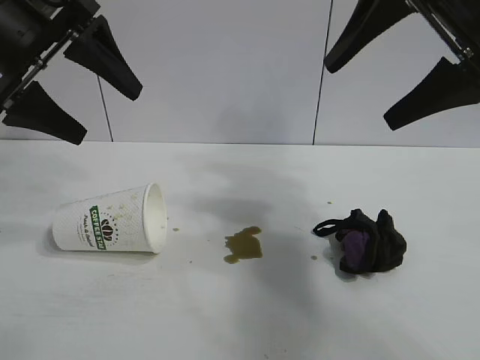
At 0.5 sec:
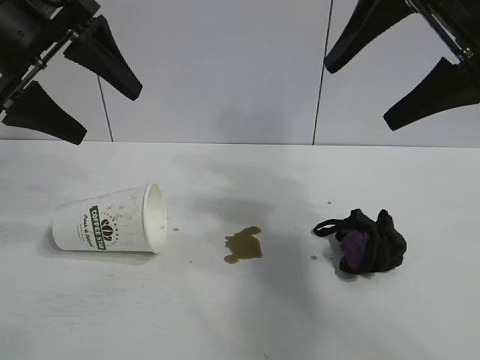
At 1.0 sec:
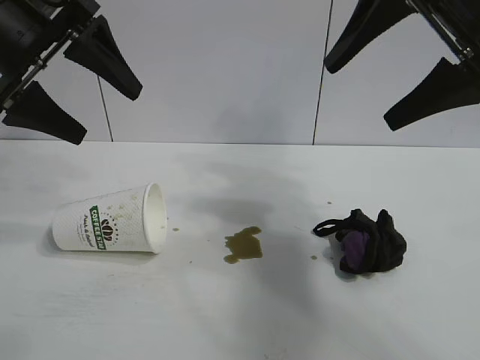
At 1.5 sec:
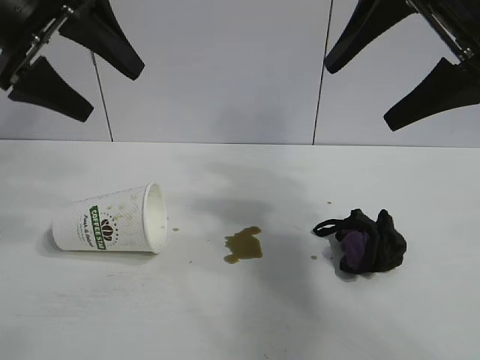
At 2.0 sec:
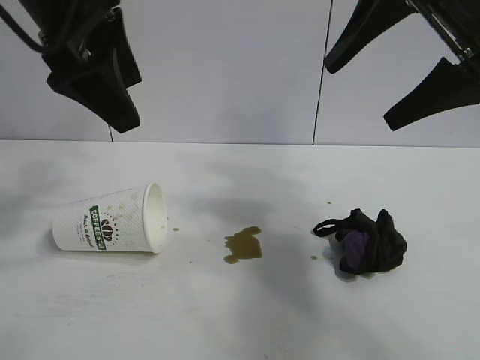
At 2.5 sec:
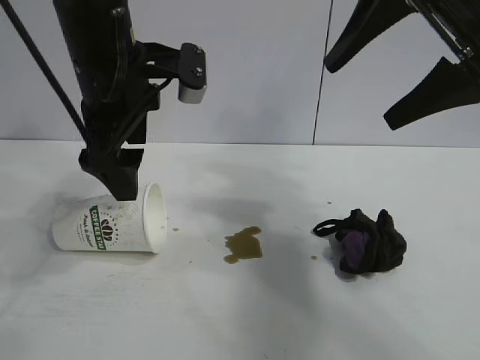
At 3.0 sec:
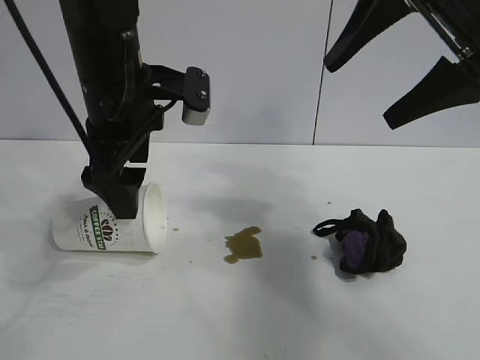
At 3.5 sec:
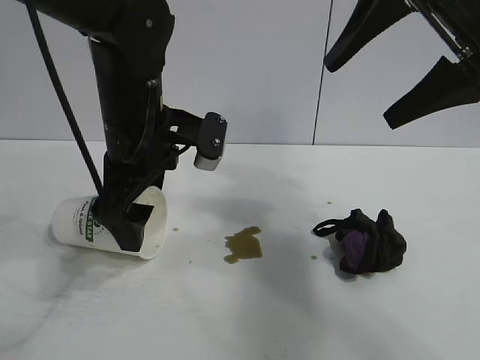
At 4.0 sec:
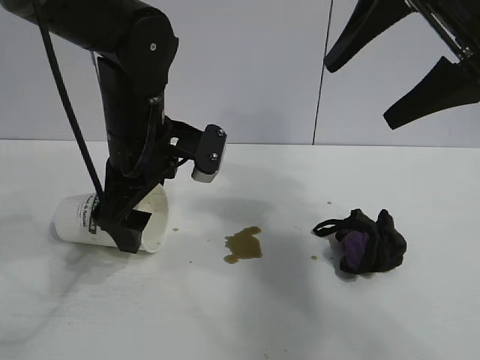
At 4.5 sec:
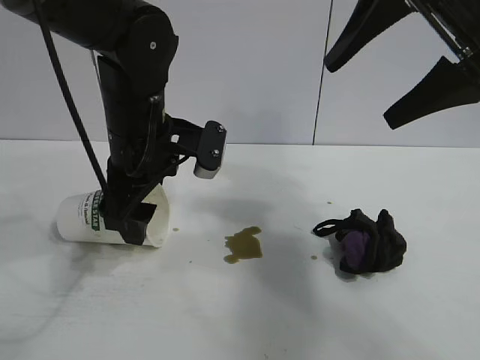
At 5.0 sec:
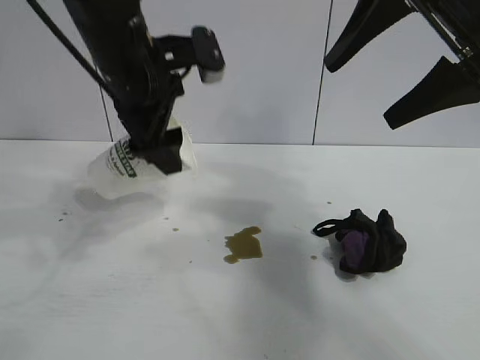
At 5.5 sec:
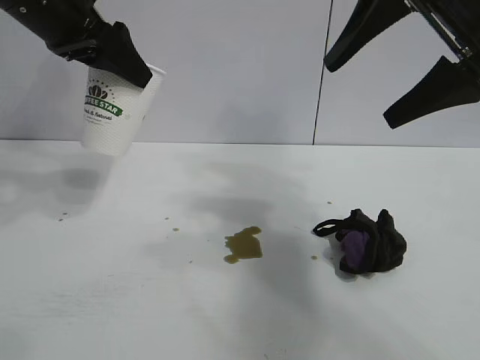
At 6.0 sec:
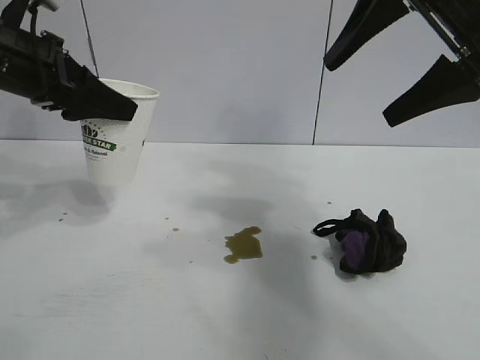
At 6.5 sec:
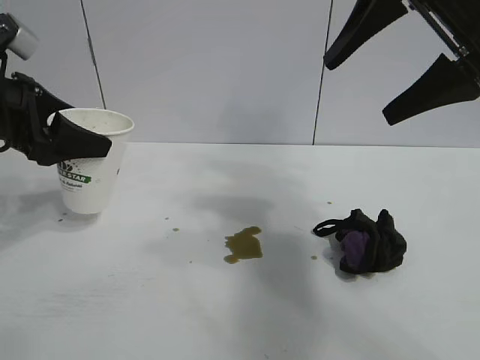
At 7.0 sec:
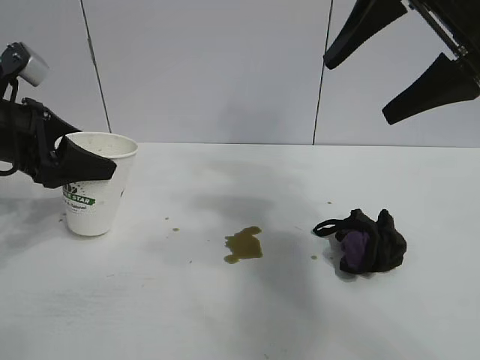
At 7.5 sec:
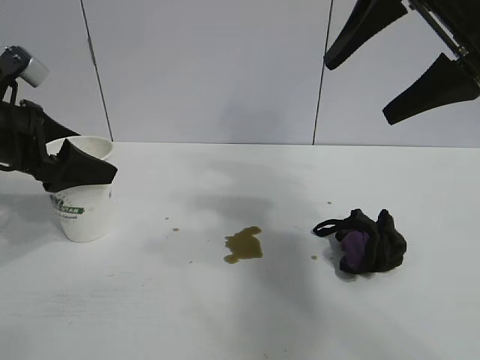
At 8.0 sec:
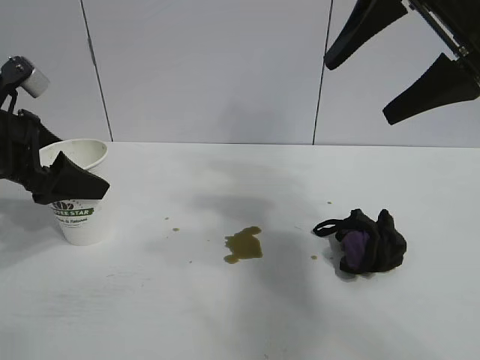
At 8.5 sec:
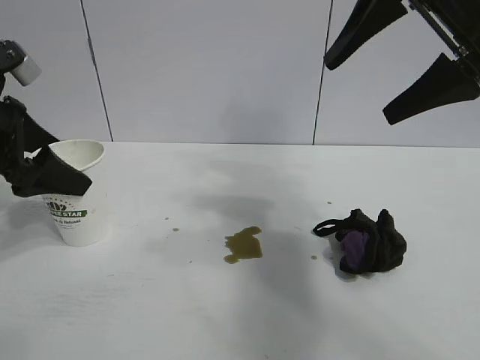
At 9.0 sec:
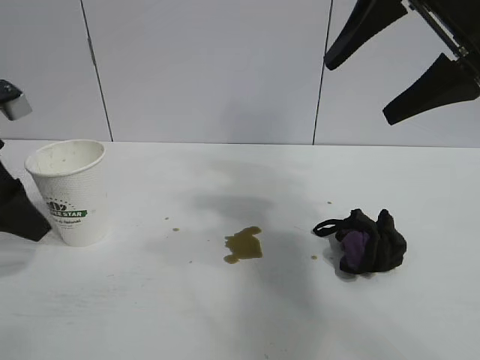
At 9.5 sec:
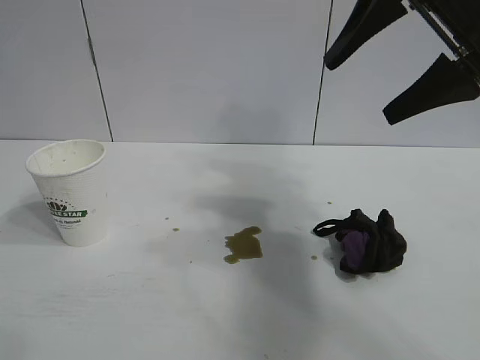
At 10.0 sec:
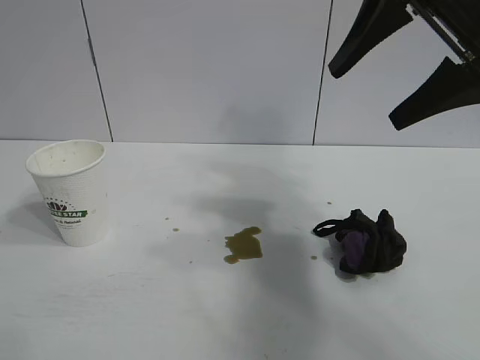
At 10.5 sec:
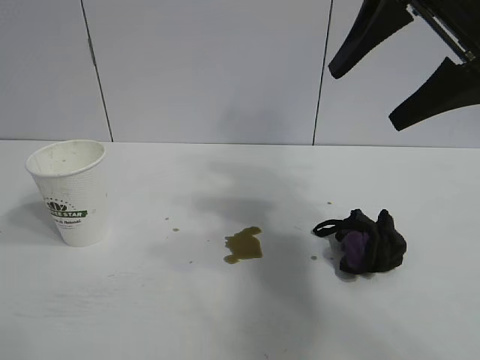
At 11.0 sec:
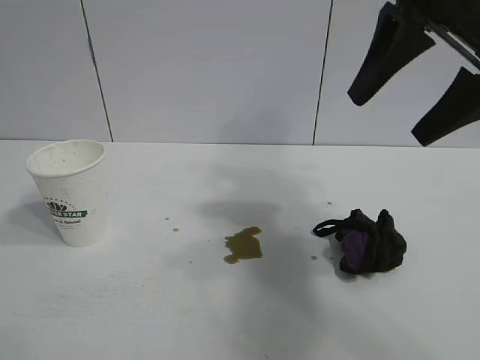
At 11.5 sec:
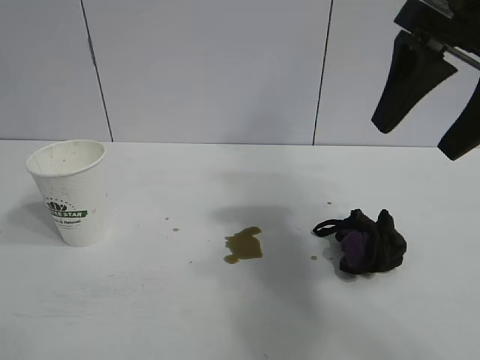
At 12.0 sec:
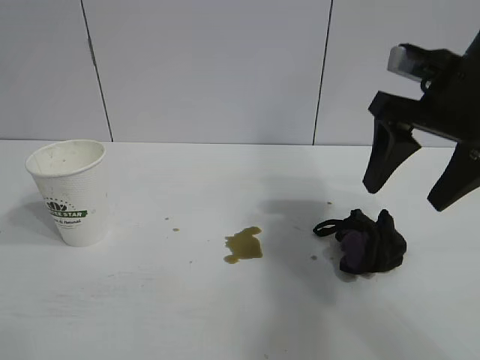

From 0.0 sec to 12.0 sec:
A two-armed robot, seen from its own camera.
Task of the whole recording: the left gripper pick up the fallen cup and place it upright, the right gripper grasp the black rag and wipe the stain on the table, the right gripper put the black rag back in its original position.
Step, from 1.5 sec to 4.5 sec: Grasp the paper cup with left gripper.
Step, from 5.0 sec to 8.0 sec: Stand the paper cup upright with left gripper.

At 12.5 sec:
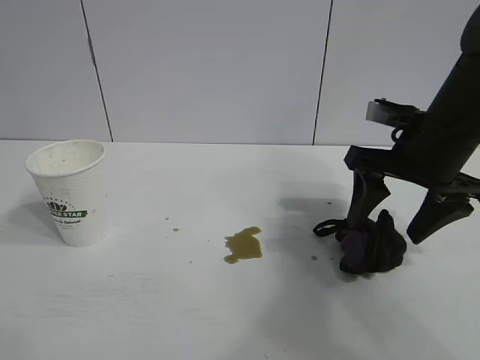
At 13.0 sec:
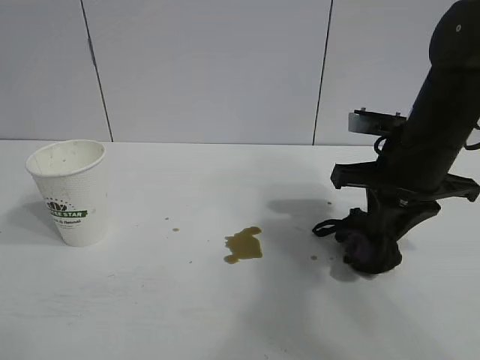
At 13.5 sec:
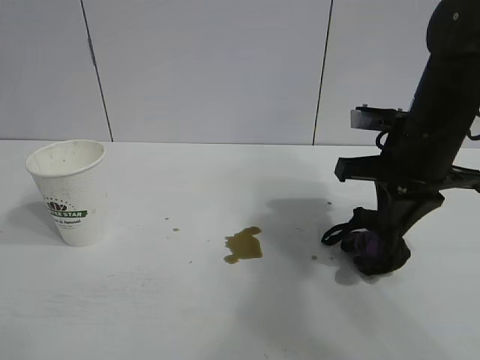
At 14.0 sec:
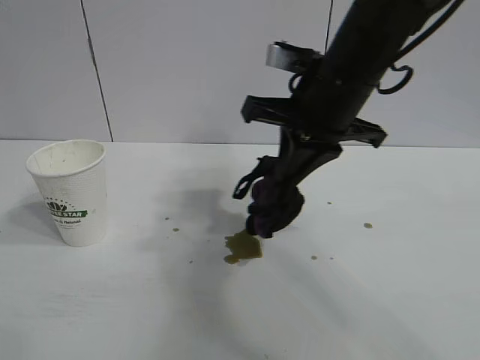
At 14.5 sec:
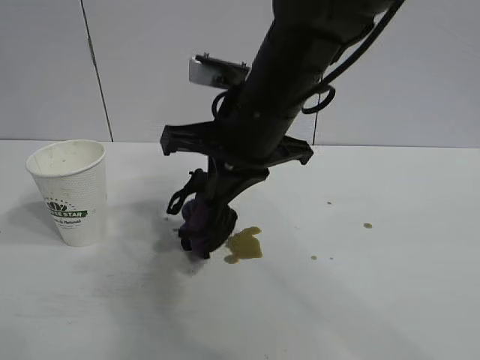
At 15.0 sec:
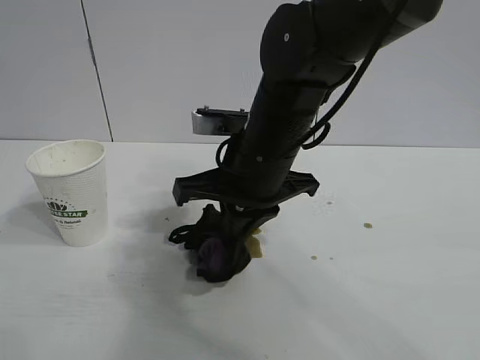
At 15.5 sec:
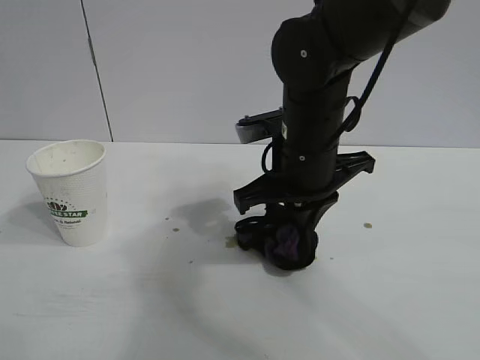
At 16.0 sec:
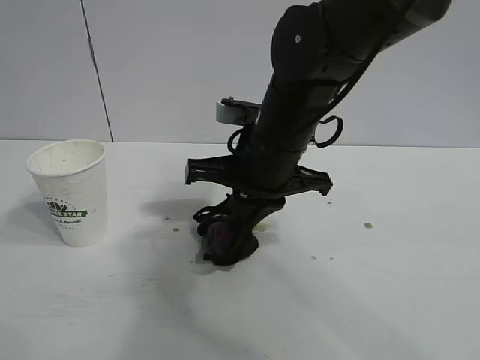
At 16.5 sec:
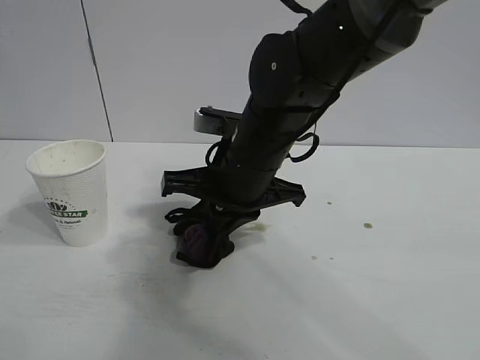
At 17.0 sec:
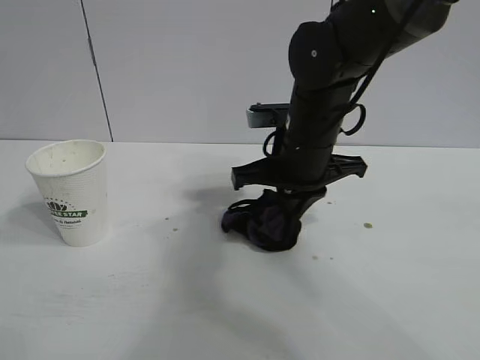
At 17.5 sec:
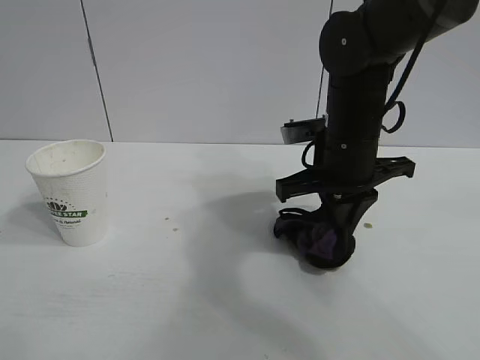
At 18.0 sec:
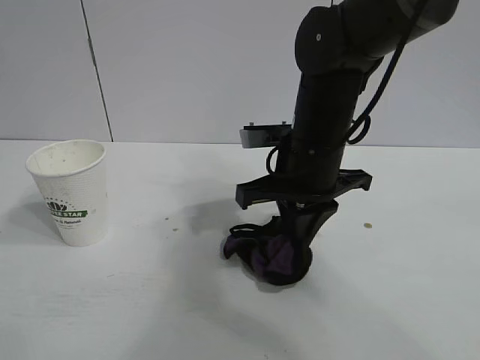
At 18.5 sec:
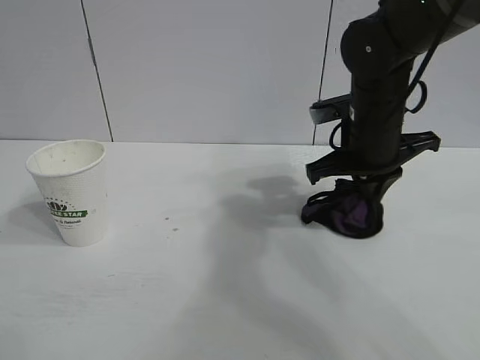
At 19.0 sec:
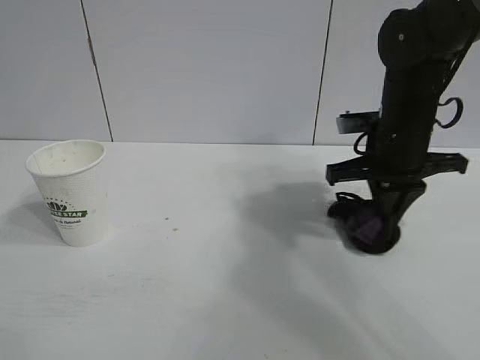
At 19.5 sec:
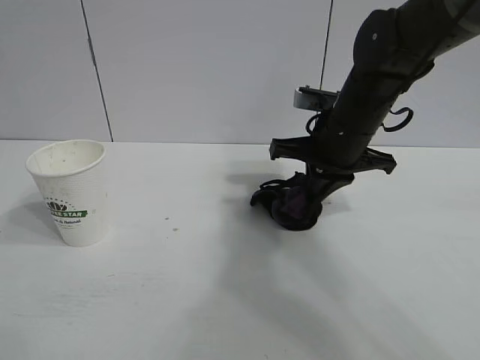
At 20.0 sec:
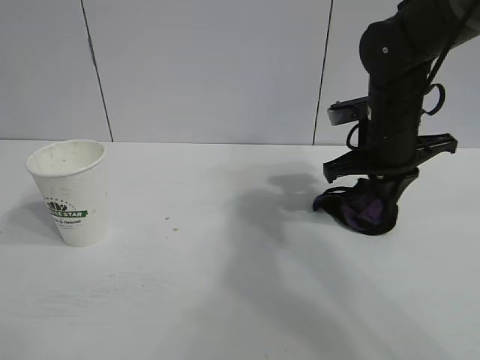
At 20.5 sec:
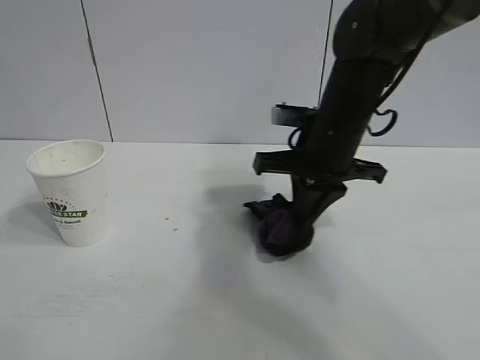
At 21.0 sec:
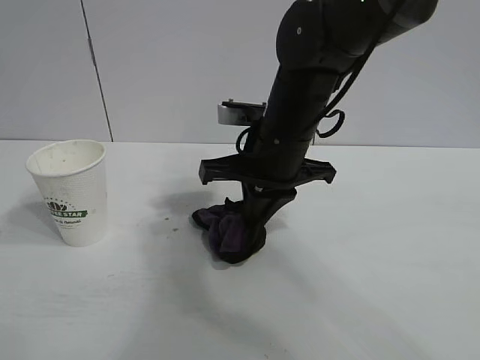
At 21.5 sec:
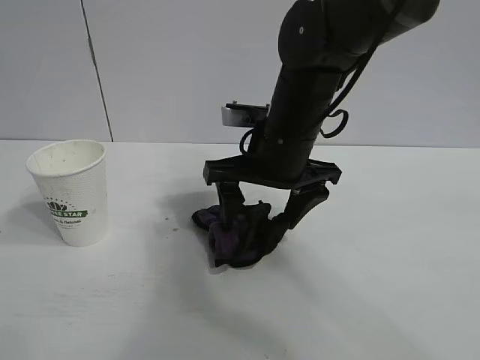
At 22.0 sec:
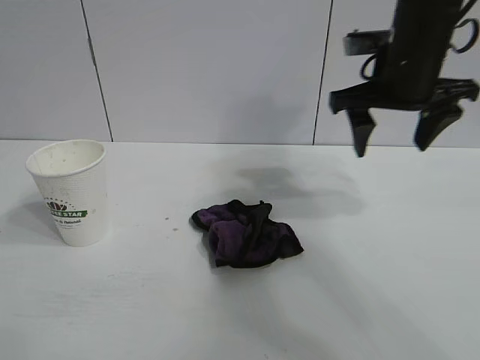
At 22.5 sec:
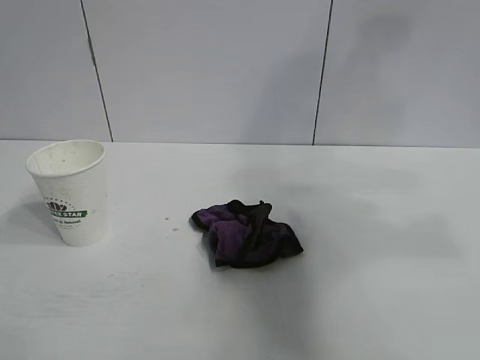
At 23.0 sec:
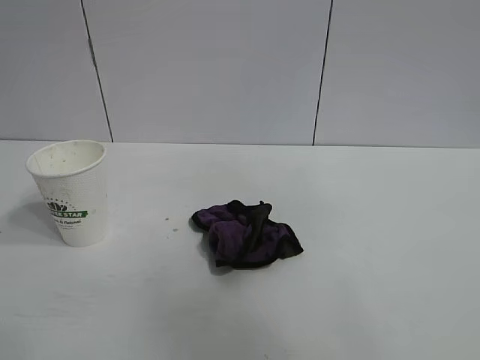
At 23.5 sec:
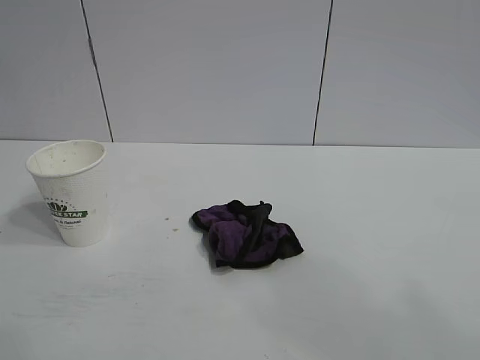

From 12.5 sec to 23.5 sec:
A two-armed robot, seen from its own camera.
Task of the whole recording: the left gripper pick up the fallen cup and place it upright, the right gripper grasp the black rag and wipe the stain on the table, the right gripper put the black rag back in its original position.
Step, from 13.5 sec to 20.5 sec: Wipe the stains off the table with the rag with right gripper.
Step, from 21.0 sec to 21.5 sec: Place the rag on the table with right gripper.
